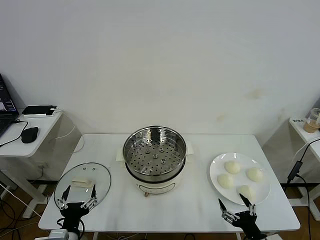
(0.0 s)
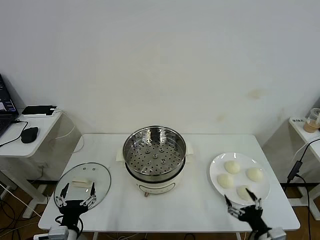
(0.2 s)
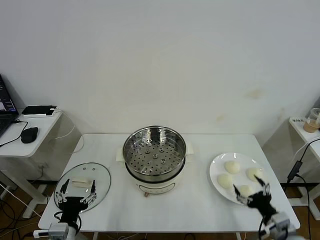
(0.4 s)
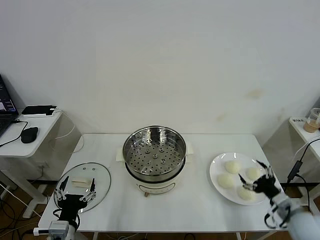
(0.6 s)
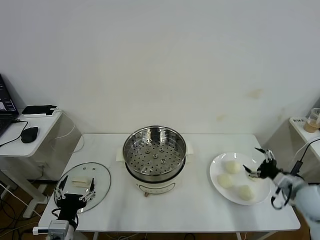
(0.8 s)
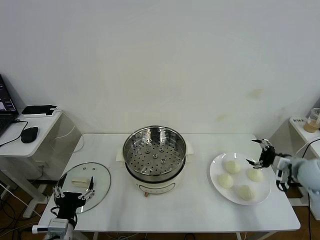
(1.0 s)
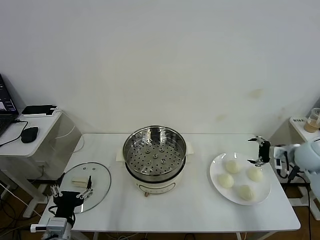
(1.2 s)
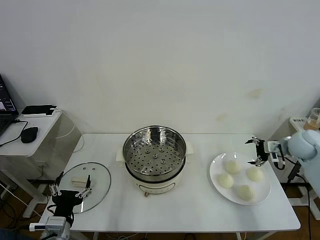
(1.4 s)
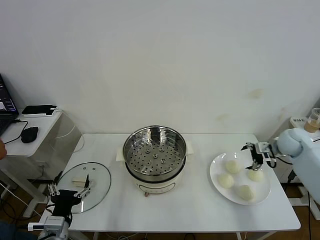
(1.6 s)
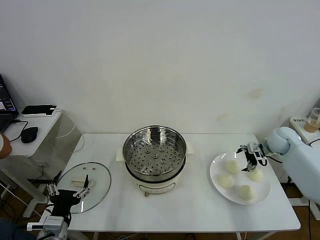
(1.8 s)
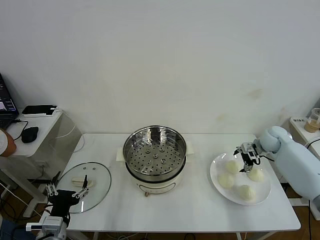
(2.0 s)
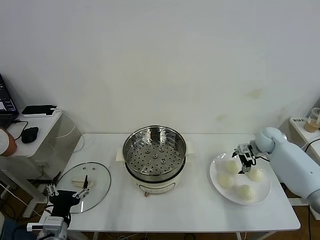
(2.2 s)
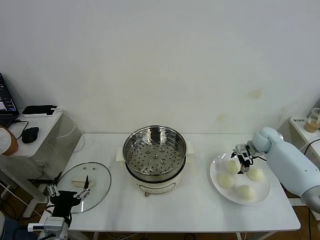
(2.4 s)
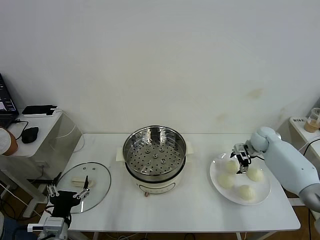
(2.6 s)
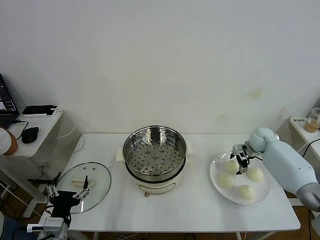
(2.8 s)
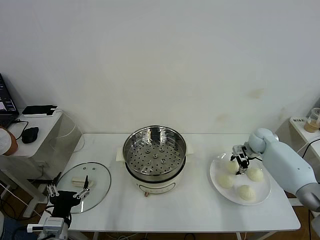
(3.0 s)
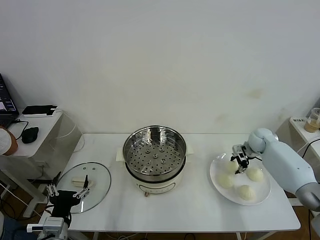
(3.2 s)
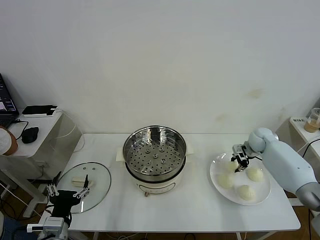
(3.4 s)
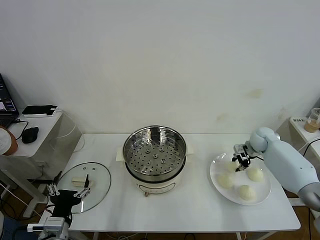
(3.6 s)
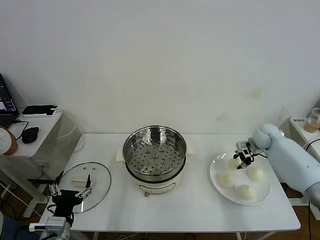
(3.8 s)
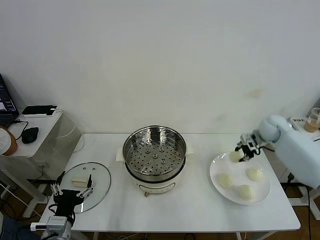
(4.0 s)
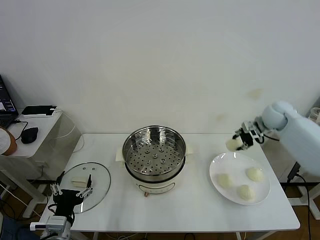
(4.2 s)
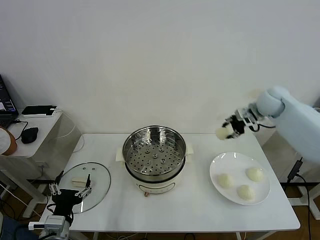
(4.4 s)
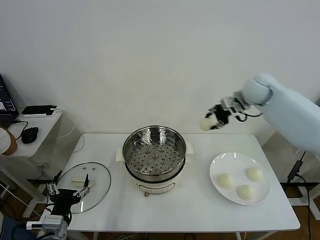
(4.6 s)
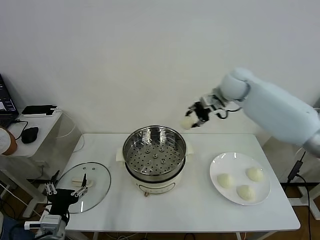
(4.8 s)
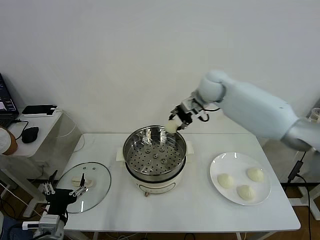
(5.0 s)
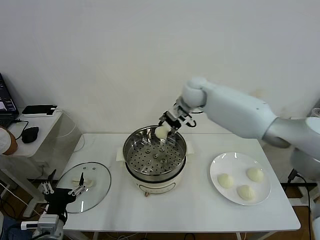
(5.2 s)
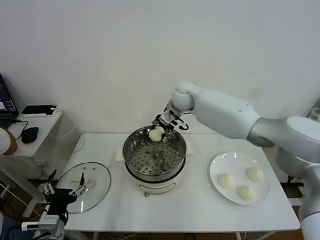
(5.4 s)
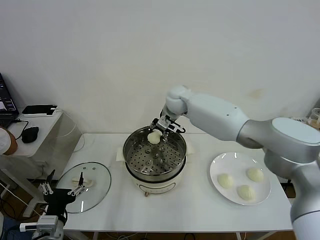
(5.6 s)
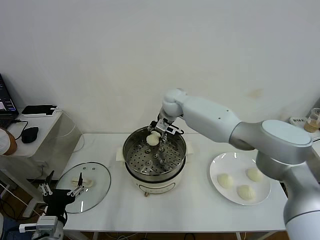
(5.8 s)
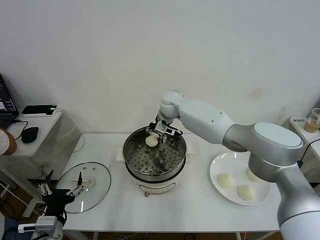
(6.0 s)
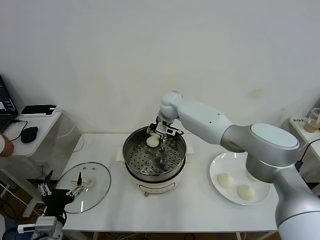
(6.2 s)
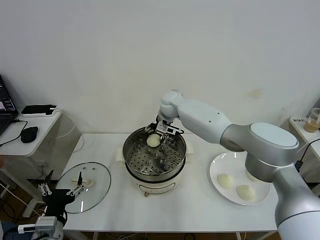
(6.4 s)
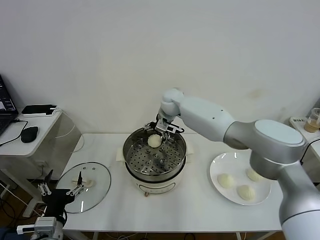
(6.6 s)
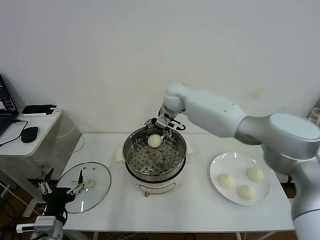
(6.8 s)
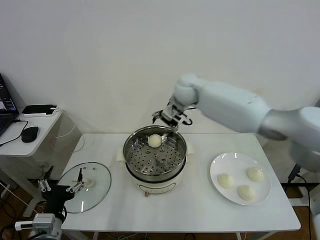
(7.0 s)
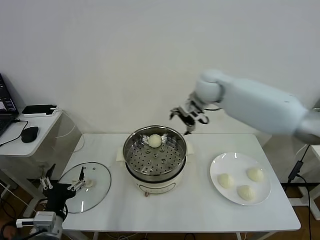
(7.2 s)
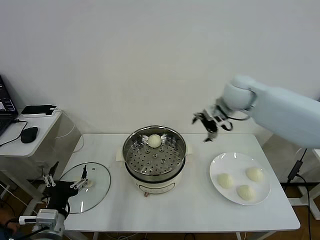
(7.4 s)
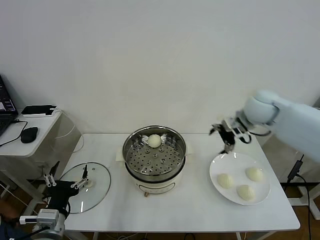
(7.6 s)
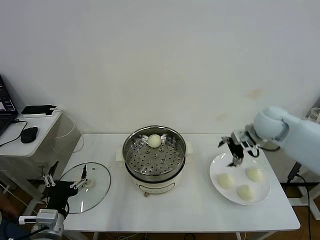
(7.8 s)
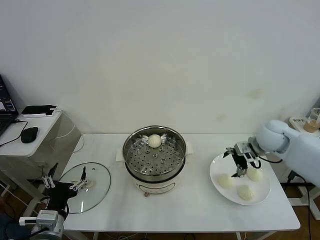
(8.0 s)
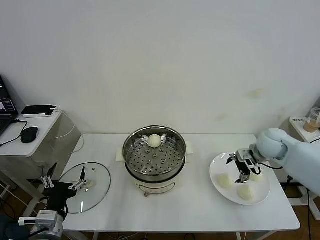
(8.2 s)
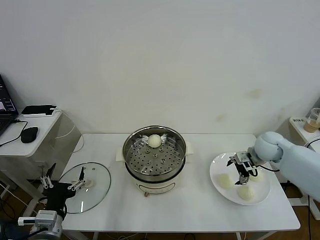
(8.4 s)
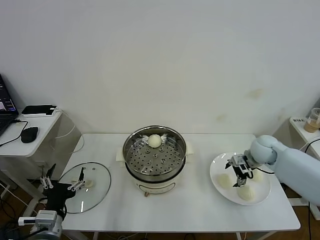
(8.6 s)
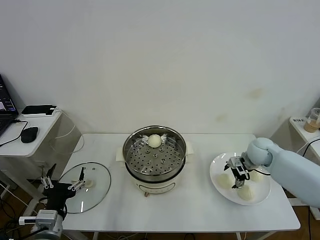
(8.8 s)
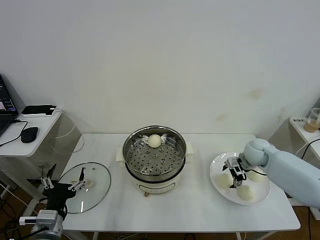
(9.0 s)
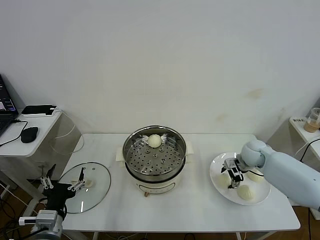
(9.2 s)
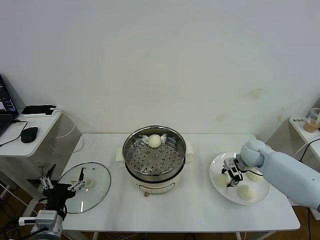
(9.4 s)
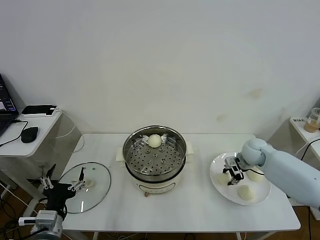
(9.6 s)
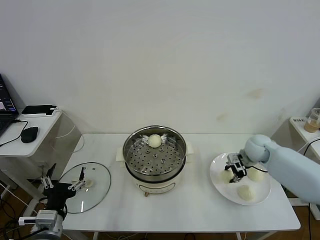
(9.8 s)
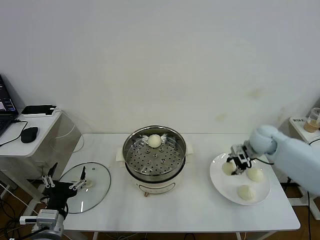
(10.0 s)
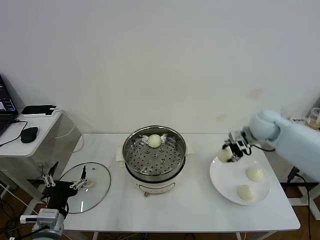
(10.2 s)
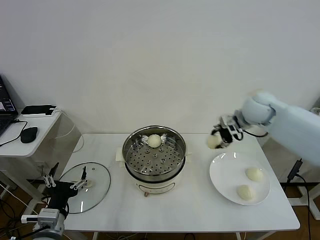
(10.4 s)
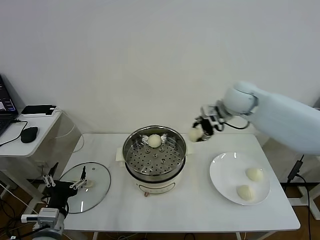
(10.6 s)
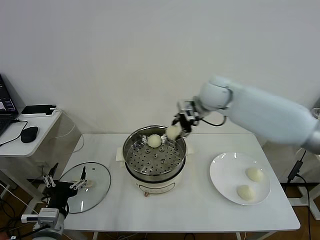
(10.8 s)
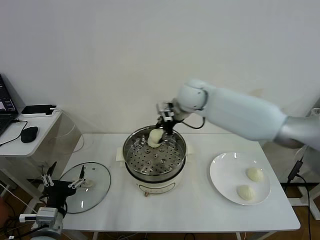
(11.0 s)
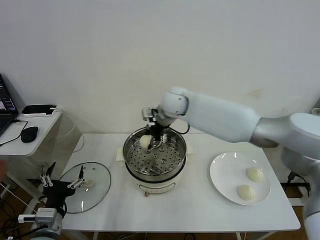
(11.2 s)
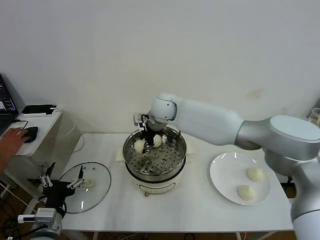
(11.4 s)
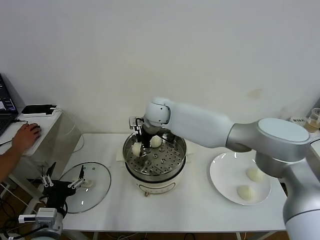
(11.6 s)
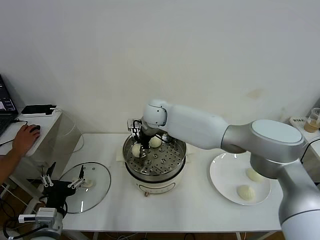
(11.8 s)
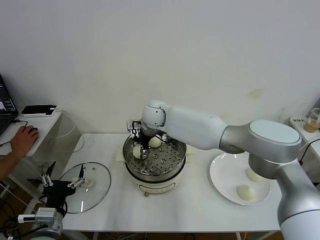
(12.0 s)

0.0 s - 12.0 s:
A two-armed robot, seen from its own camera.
Task of the whole recording: take steamed baozi put them in steamer then cover it.
Step, 0.0 s - 3.2 s: Grasp the baozi in the plate with right gripper.
Step, 3.4 s - 6.4 s: Place the baozi on the steamer with right gripper.
Step, 6.6 s - 9.6 s: Grasp the baozi in the plate with right gripper.
1.6 s - 3.0 s: The right gripper is displaced downward by about 5 cm, and closes.
3.0 s - 4.4 s: The right gripper shifts about 20 cm upward, and closes its fingers.
4.4 s - 6.0 s: The right gripper travels to the left by some 30 cm.
6.0 s - 7.6 s: The right gripper goes about 30 cm to the right and backward, and opens its fingers.
7.6 s - 9.0 s: The right gripper moves downward, roughly 20 cm.
9.0 s - 10.4 s: The right gripper is displaced upward and to the left by some 25 cm, and closes its fingers.
10.4 s - 12.0 s: The right gripper goes about 30 cm to the left, and opens up.

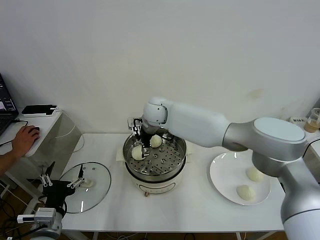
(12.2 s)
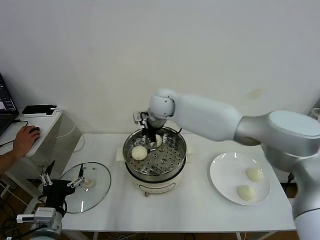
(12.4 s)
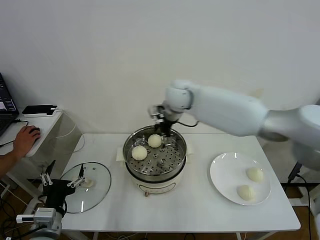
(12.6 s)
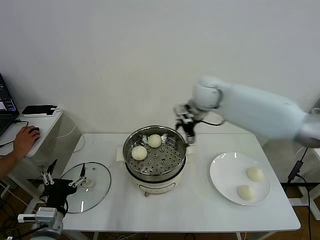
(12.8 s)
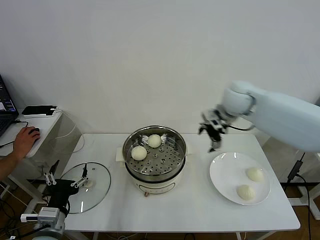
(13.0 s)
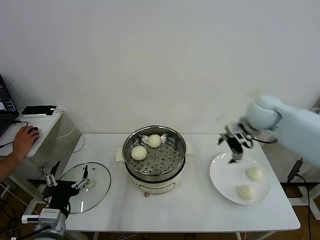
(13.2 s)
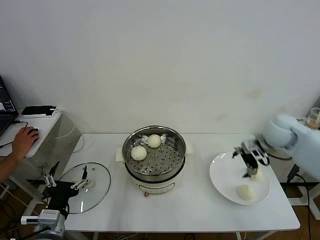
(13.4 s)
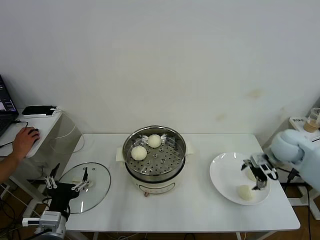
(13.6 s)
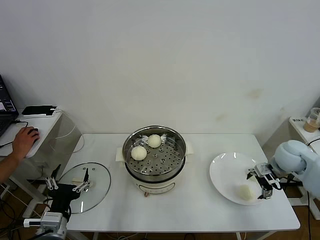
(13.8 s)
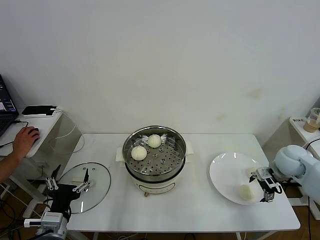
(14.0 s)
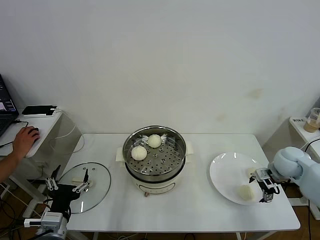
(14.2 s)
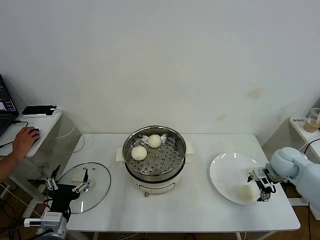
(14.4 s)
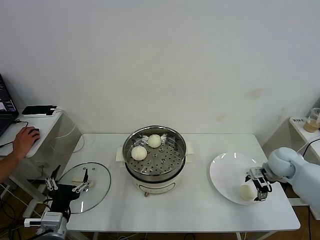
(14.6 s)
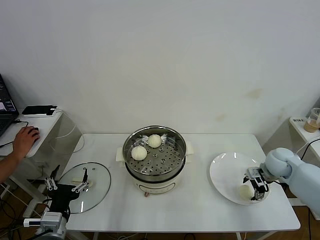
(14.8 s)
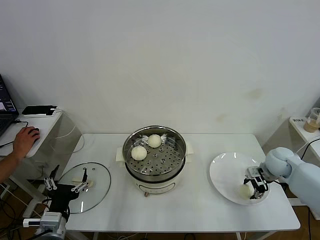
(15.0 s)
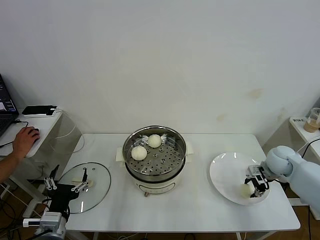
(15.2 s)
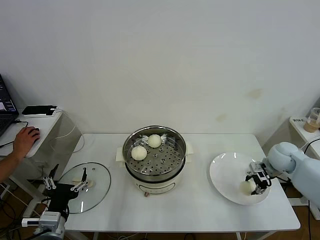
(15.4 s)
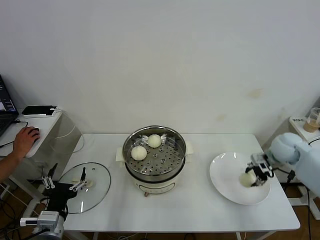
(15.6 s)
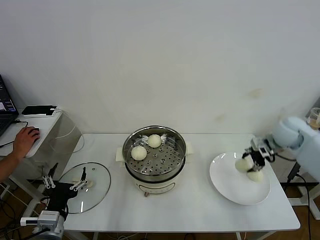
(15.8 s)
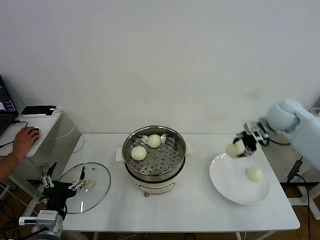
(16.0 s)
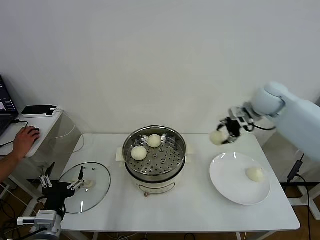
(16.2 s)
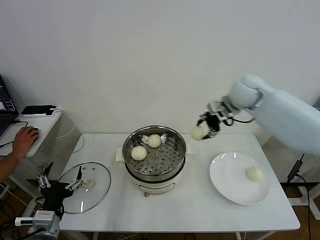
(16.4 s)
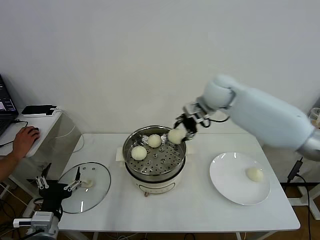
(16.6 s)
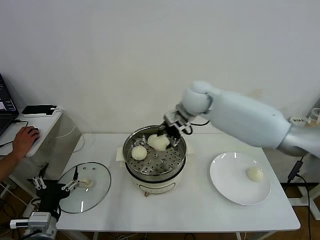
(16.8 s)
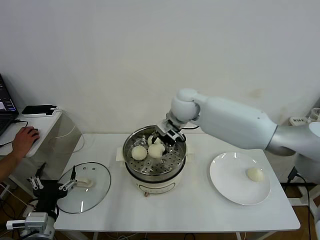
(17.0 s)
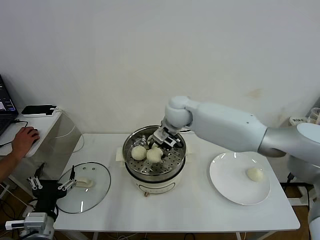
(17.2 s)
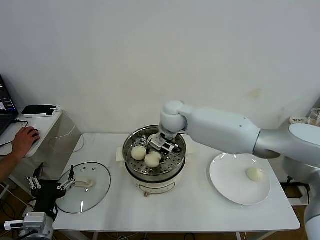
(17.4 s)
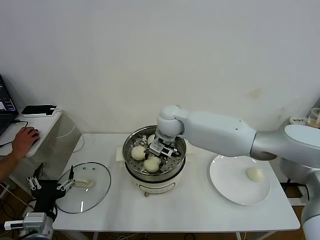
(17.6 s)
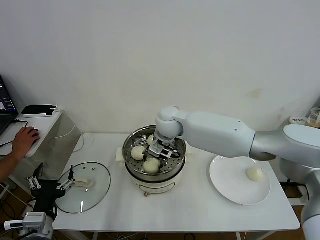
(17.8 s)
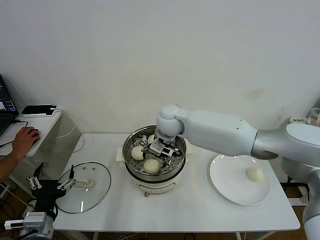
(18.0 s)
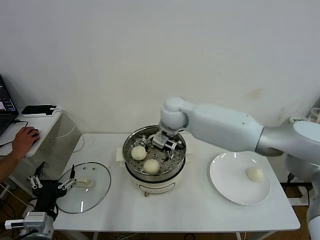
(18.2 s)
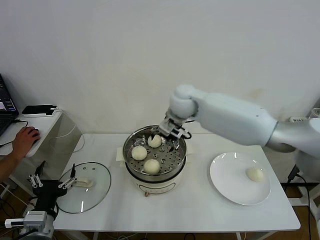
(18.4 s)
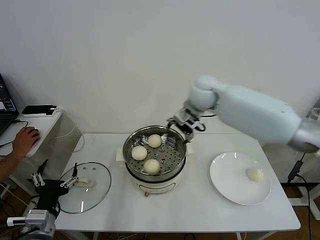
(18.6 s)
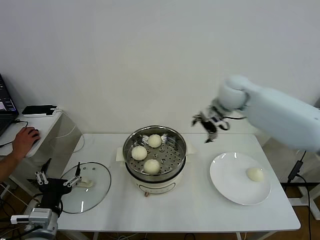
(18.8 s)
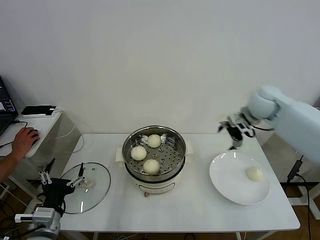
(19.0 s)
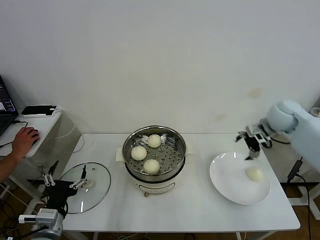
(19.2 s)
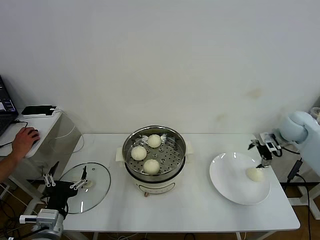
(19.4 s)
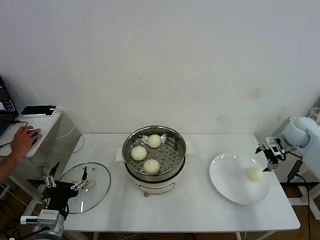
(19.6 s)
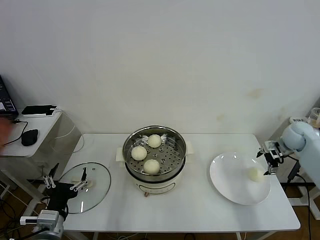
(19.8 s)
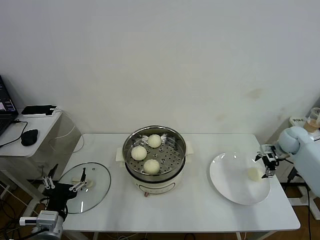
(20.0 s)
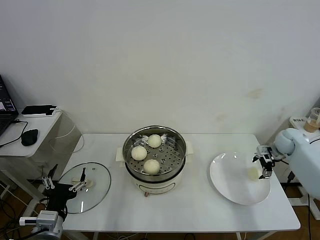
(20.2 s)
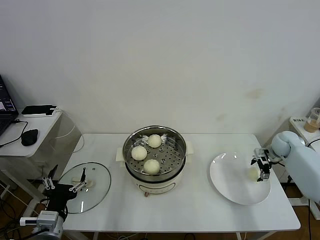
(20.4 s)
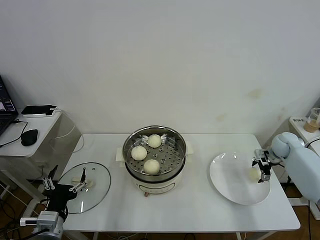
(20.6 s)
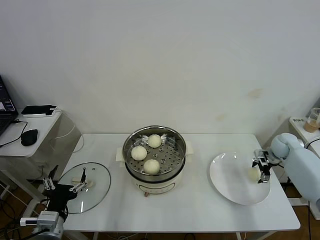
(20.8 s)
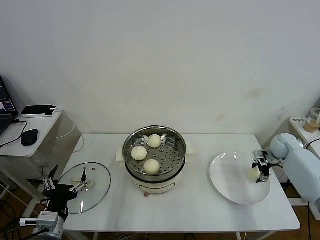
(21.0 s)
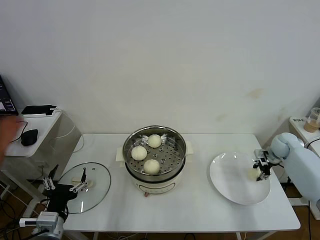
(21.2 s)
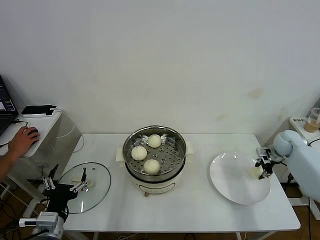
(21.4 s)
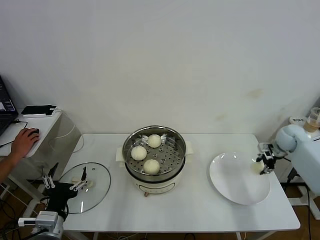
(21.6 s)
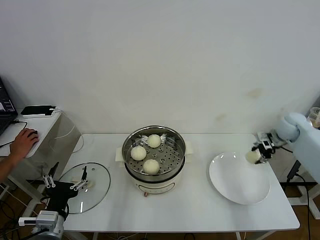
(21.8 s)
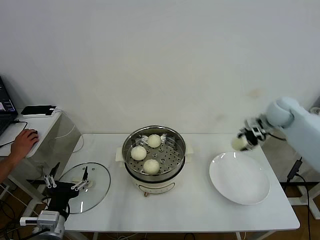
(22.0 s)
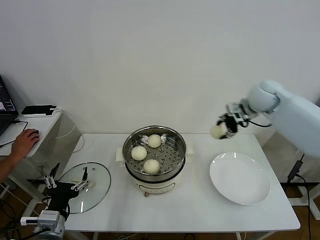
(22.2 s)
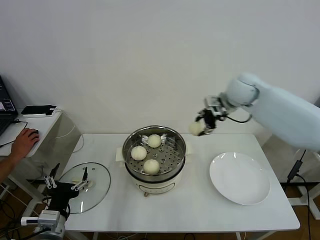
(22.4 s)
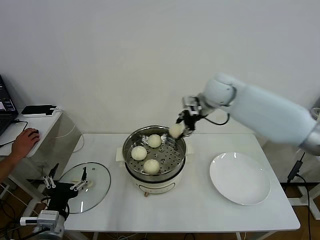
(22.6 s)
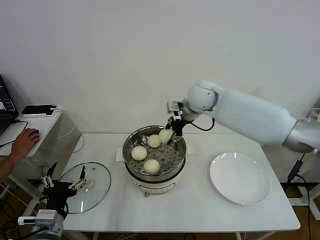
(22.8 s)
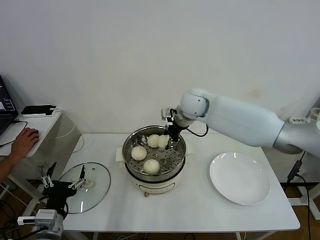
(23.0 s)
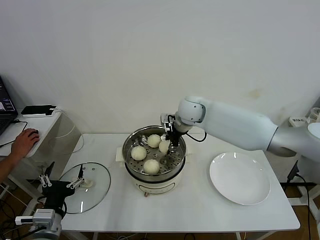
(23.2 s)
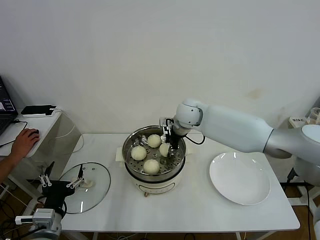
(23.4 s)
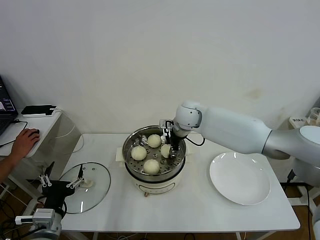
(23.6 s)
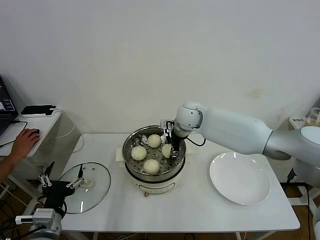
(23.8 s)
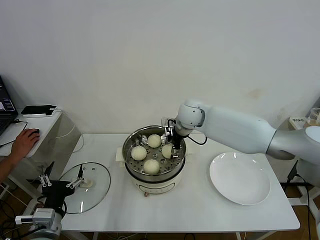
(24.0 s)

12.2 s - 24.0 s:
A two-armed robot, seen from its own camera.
Task of the whole recording: take steamed baozi put them in steamer then cover it.
Step, 12.4 s - 15.2 s: Grasp the baozi in the plate with right gripper.
Step, 15.4 s - 17.8 s: Place the baozi on the steamer with right gripper.
Step, 18.2 s - 21.4 s: Grasp the baozi in the plate with right gripper.
12.2 s - 13.6 s: The right gripper moves to the right, approximately 40 cm.
13.6 s - 15.2 s: The right gripper shifts approximately 5 cm downward, and closes up.
15.2 s - 16.6 s: The right gripper shifts about 35 cm to the left and upward.
16.6 s - 18.2 s: The right gripper heads to the left, covering roughly 10 cm, and opens its fingers.
18.2 s - 19.6 s: The right gripper goes about 40 cm to the right.
19.6 s - 21.0 s: The right gripper travels downward by about 10 cm, and closes its fingers.
21.0 s - 22.6 s: The right gripper goes approximately 40 cm to the left and upward.
22.6 s - 24.0 s: The right gripper is displaced downward and to the left by approximately 10 cm, and opens up.
